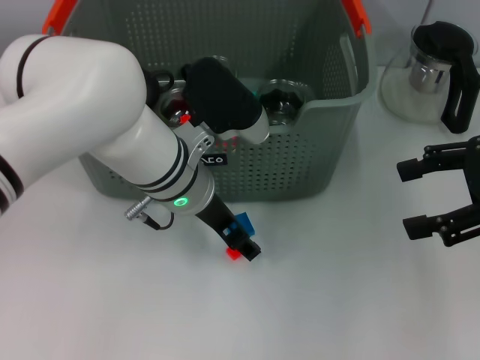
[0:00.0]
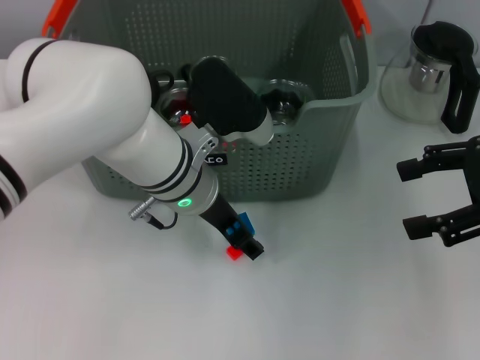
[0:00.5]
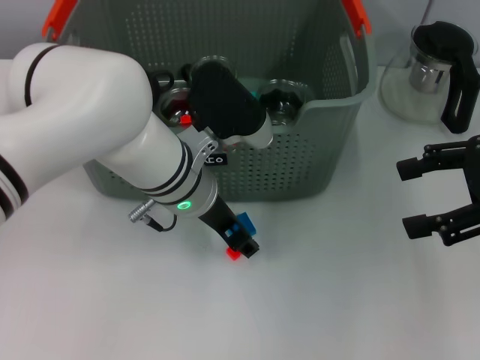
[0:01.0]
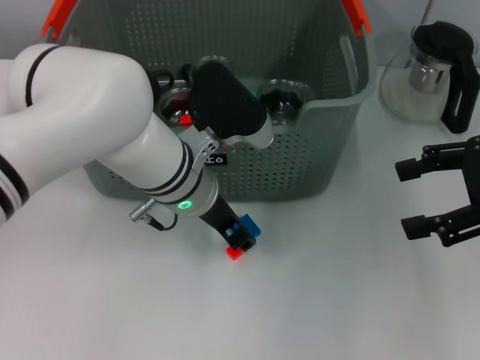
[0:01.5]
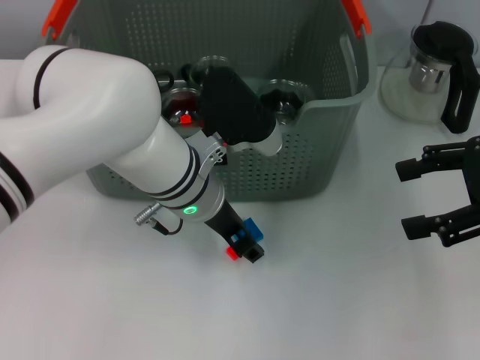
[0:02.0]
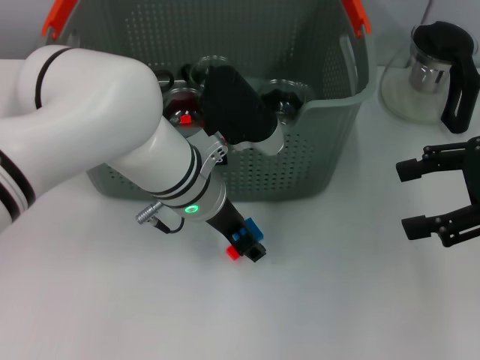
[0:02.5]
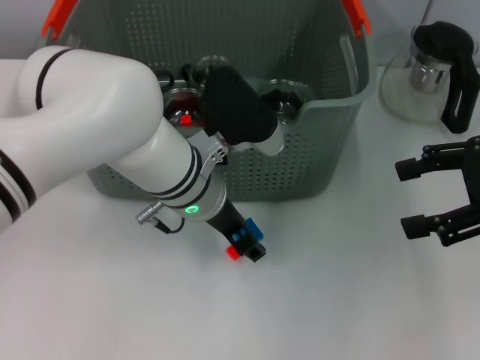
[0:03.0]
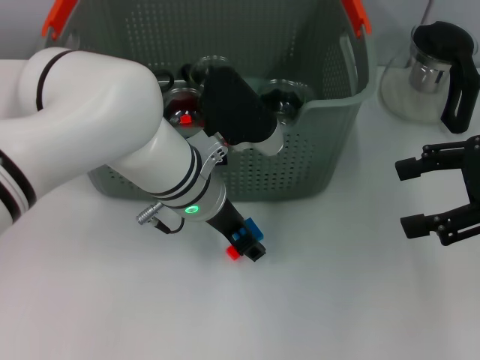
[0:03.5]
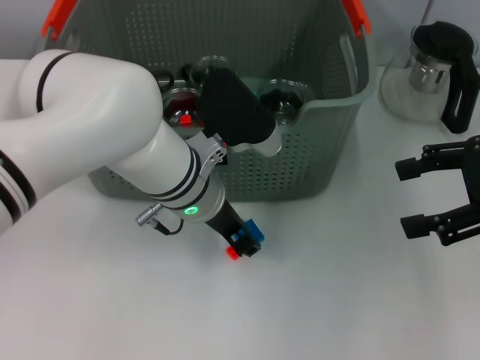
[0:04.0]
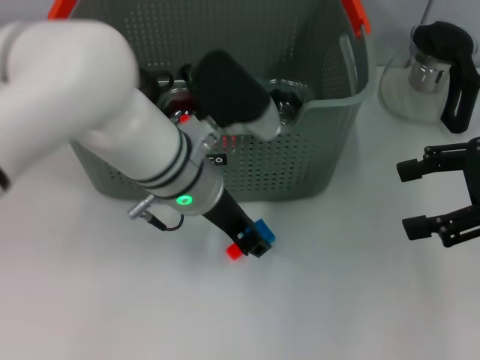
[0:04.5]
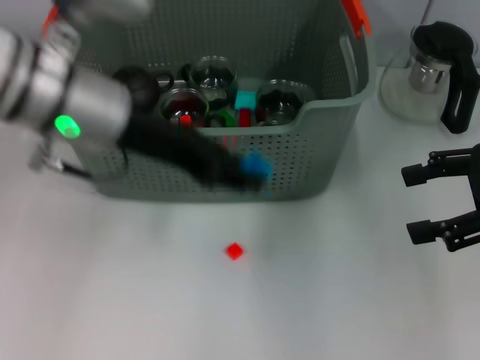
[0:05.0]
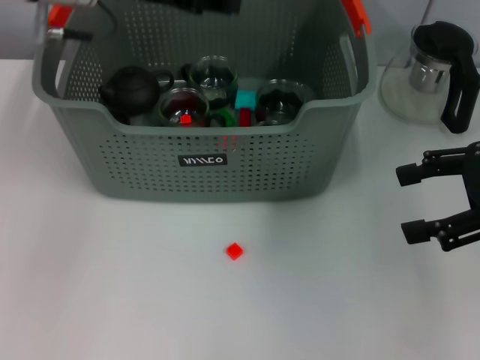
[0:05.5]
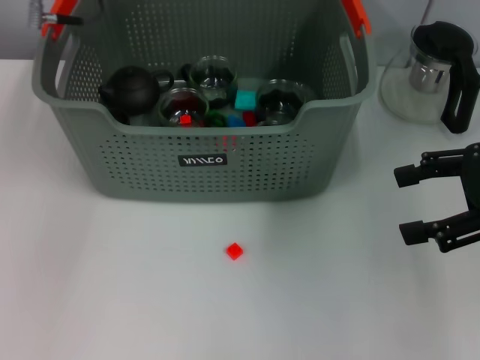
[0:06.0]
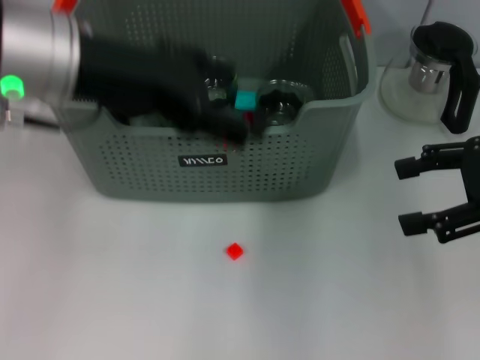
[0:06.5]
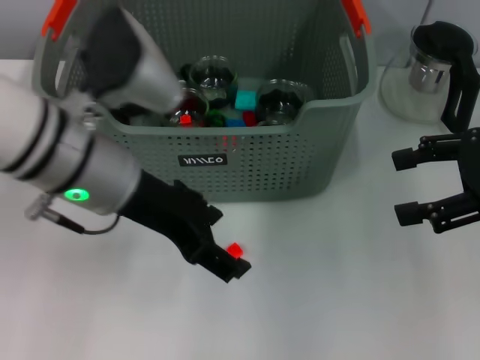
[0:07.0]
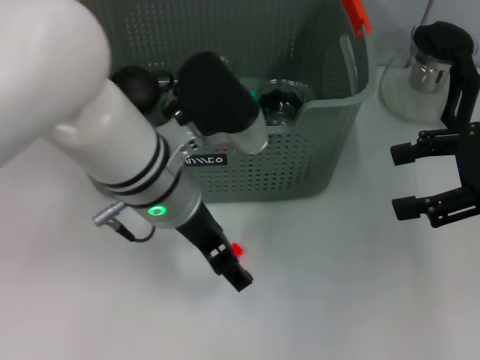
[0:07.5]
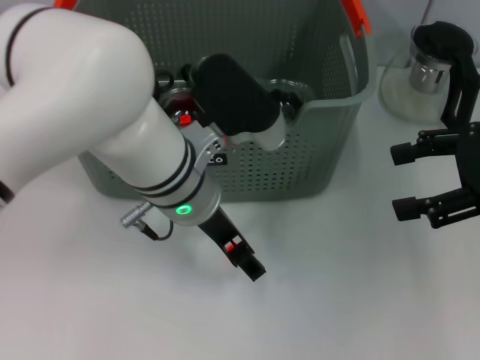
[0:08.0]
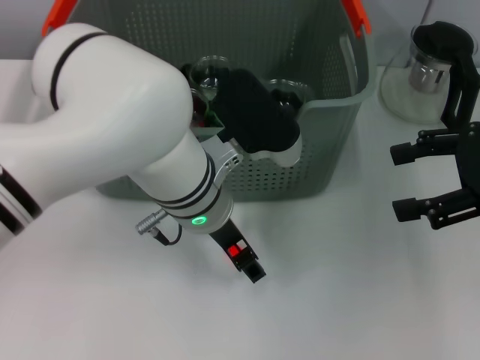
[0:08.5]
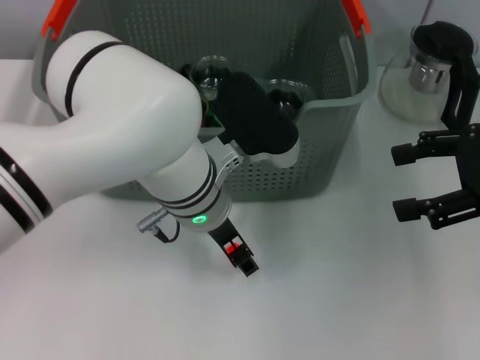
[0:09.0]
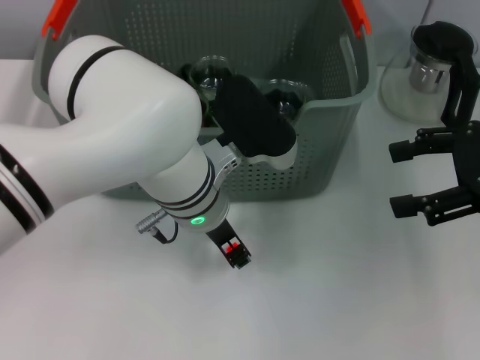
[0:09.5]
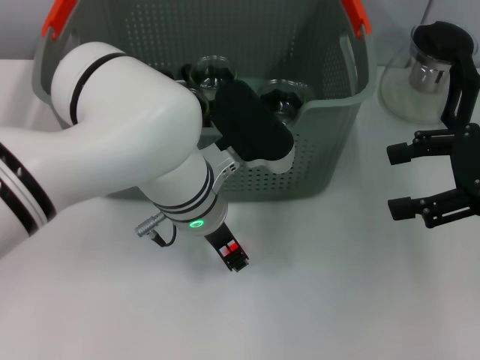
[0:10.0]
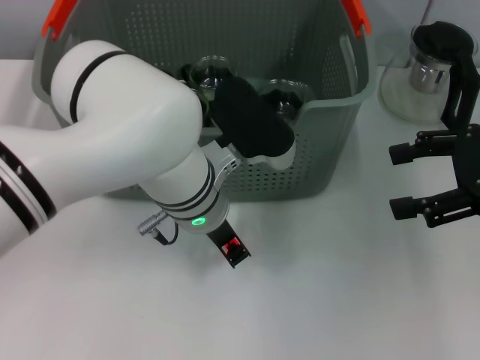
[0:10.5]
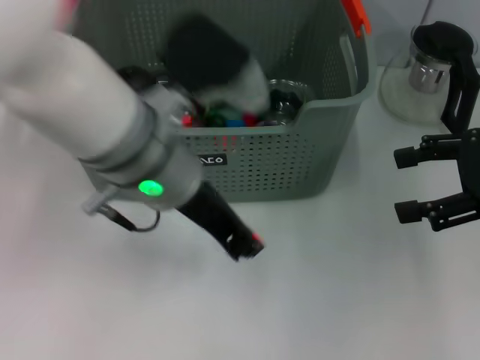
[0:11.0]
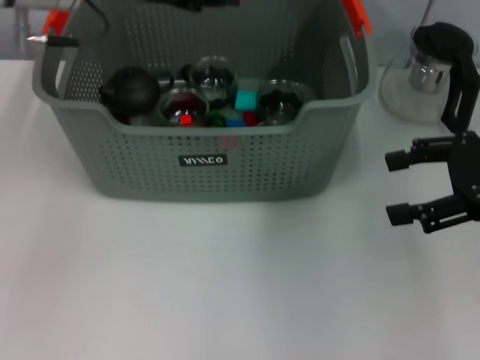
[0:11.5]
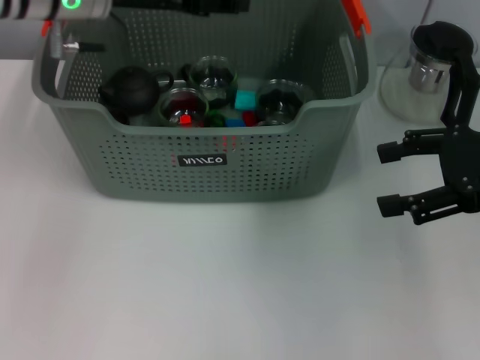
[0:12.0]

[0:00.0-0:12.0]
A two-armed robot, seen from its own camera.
Task of the whole recording: pick up the teacup on the table and place it into the storage bin, pick up the block on the table and place it into the storage bin.
Step, 0:00.0 to 0:04.0: Grasp the dark blue block with left gripper.
Step, 0:04.5 to 0:05.5: Place the dark blue block in the storage box with left gripper.
Step, 0:06.0 to 0:10.5: Grasp the orange block with left gripper.
Step, 0:11.0 to 0:11.5: Place the orange block in the storage box with left gripper.
0:00.0 to 0:02.0: The left gripper closes its fingers.
0:02.0 to 0:04.0: Neither gripper changes place.
0:04.0 to 0:06.0: The left gripper heads upward, to the left and forward, covering about 20 cm.
0:06.0 to 0:08.0: The left gripper shifts some 20 cm to the right, downward and backward, and opens up.
0:08.0 to 0:10.0: The left gripper closes its fingers.
0:10.0 to 0:12.0: The left gripper goes approximately 20 cm to the left, upward and forward.

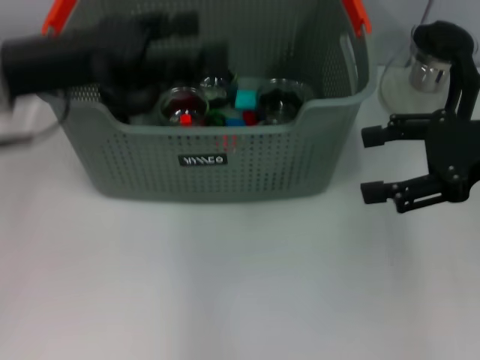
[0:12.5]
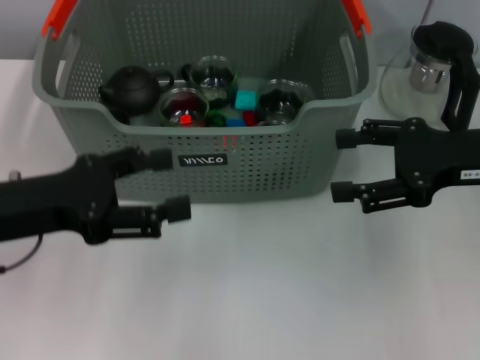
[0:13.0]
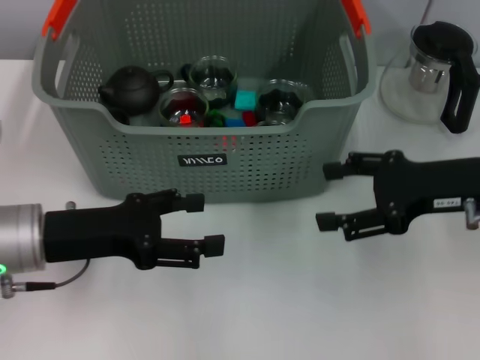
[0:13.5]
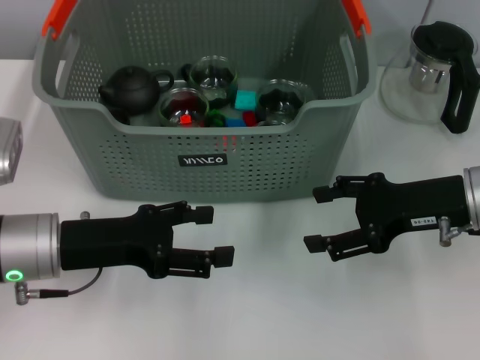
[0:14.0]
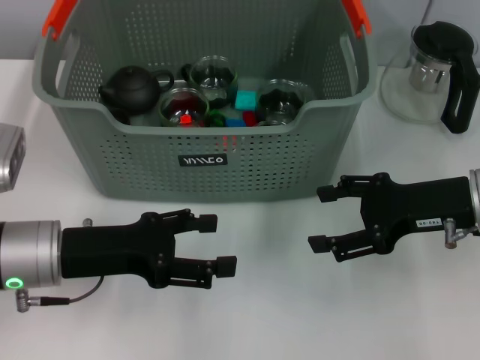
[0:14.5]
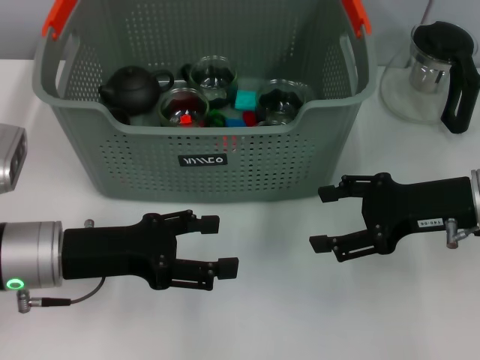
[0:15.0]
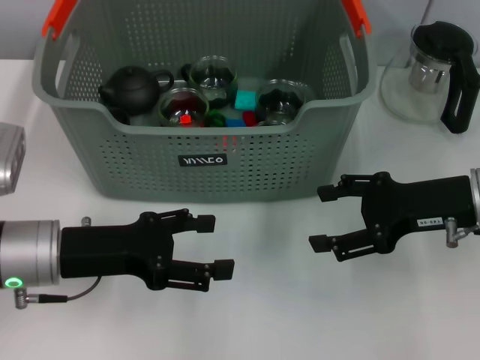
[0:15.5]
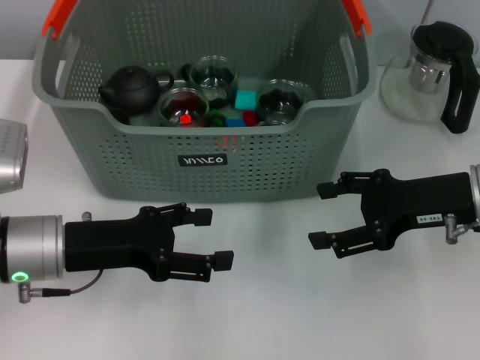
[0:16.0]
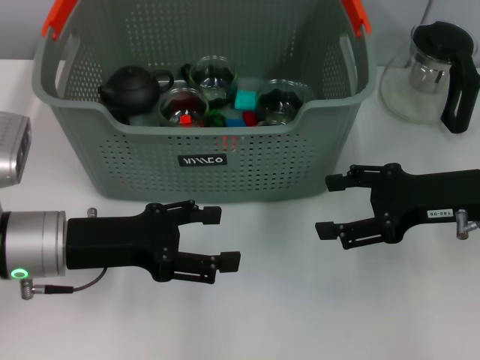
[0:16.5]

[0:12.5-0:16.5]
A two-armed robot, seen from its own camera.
Task of the whole recording: pick up the teacup on the table and place it into the storage bin, pick up the block on the table and place it into the storage bin.
0:12.5 to 0:14.5: The left gripper heads downward, covering some 15 cm. Meanwhile the right gripper heads downward, covering some 10 cm.
0:14.5 to 0:16.5: Both grippers stay about where they are.

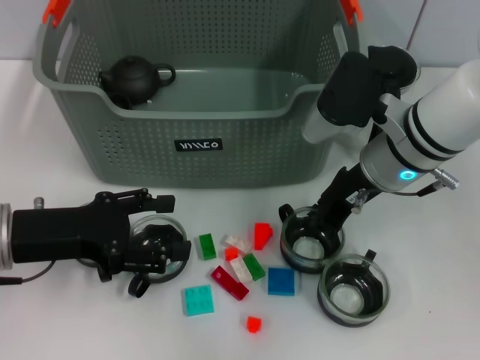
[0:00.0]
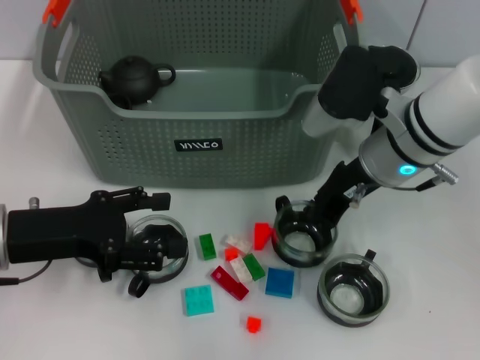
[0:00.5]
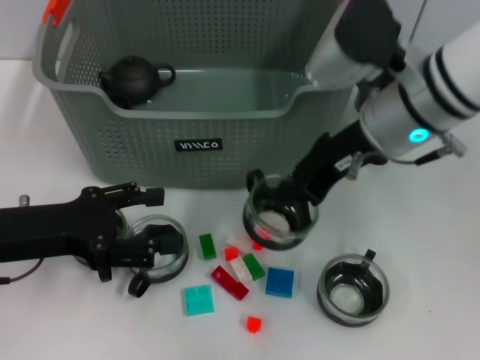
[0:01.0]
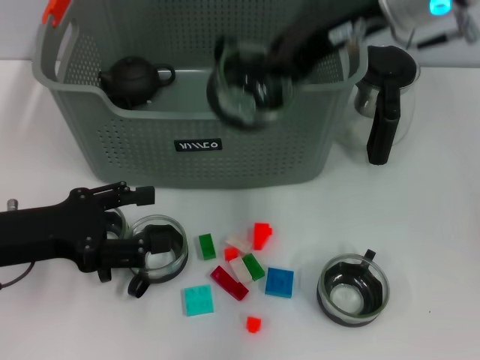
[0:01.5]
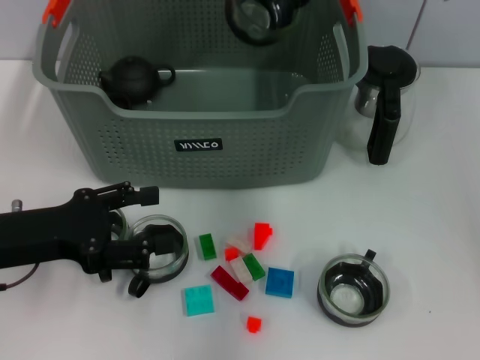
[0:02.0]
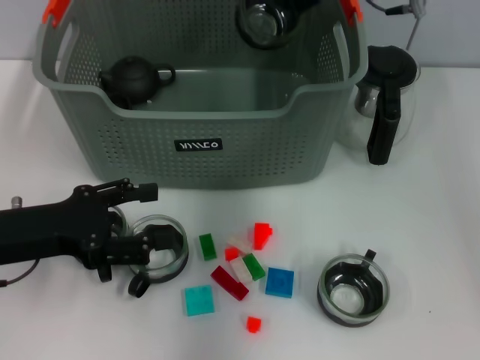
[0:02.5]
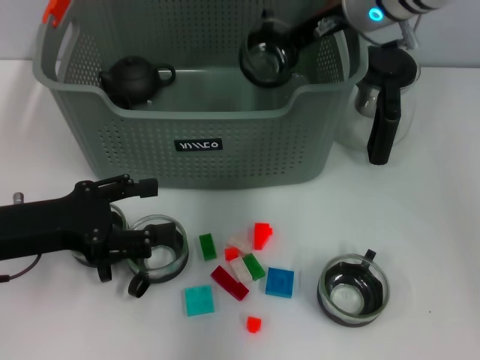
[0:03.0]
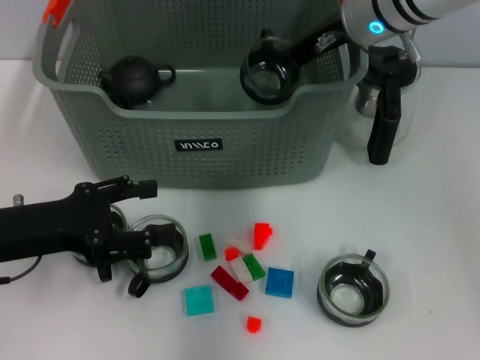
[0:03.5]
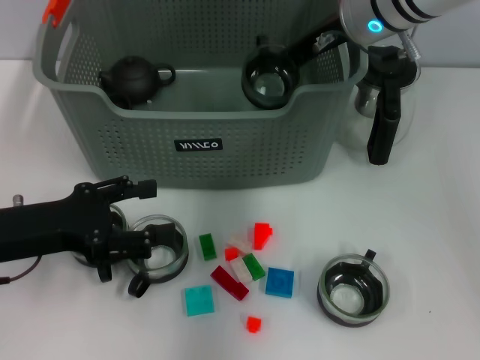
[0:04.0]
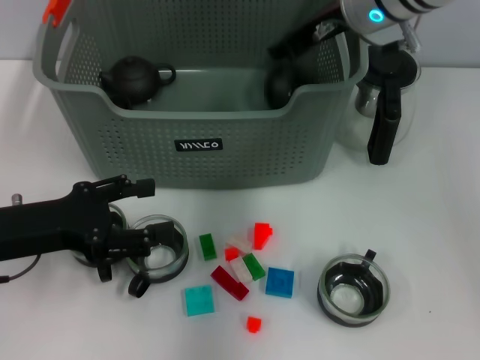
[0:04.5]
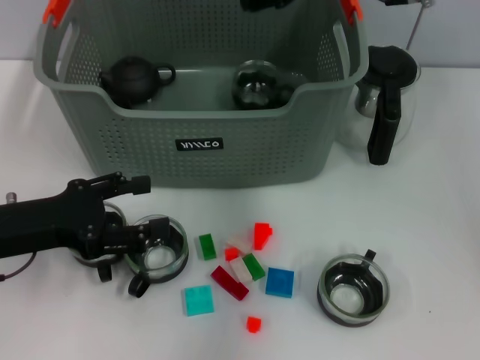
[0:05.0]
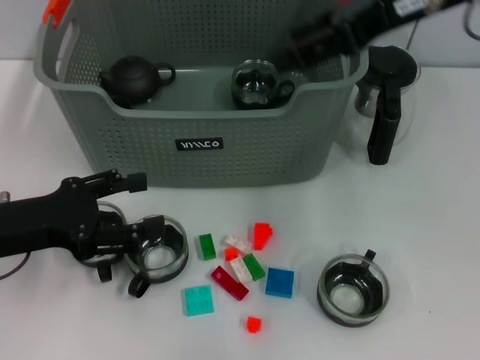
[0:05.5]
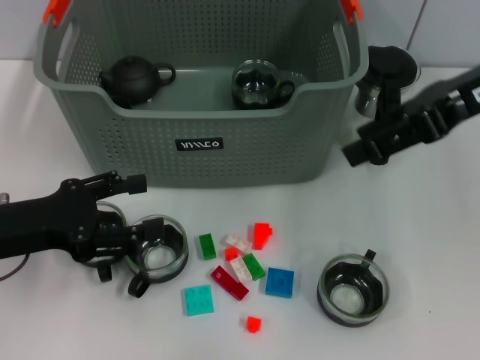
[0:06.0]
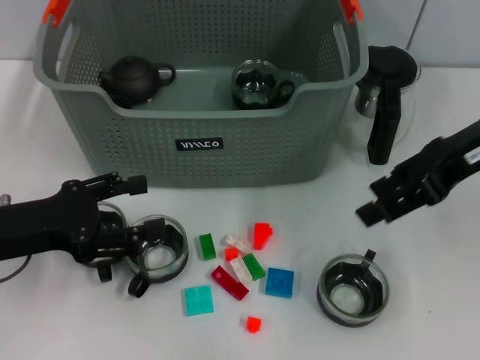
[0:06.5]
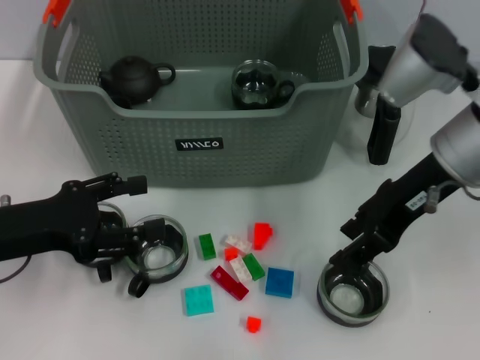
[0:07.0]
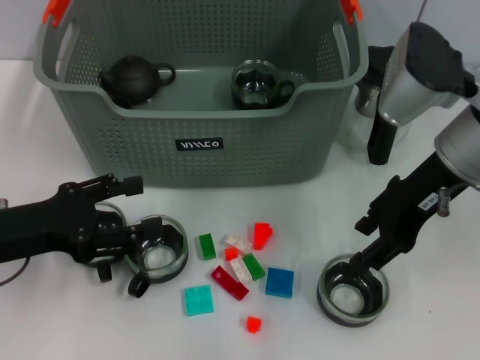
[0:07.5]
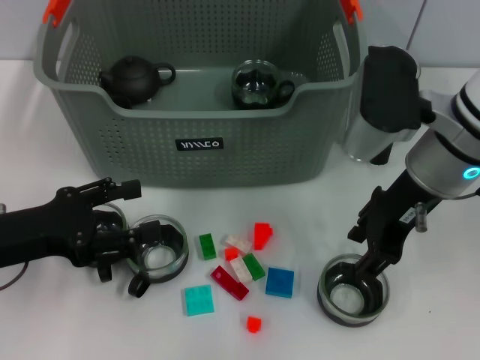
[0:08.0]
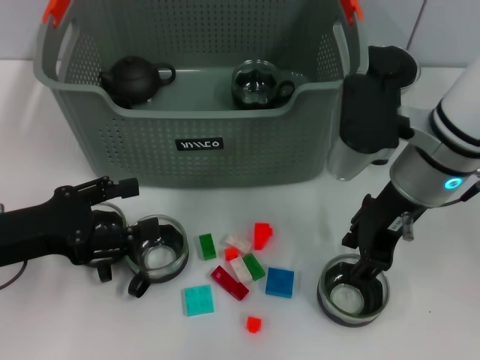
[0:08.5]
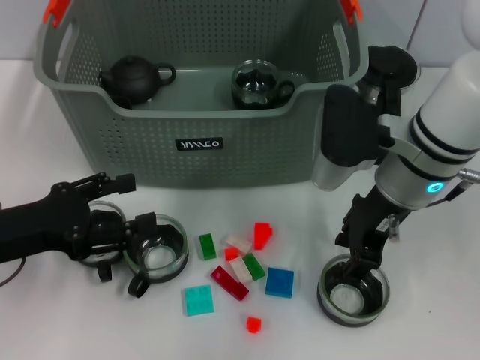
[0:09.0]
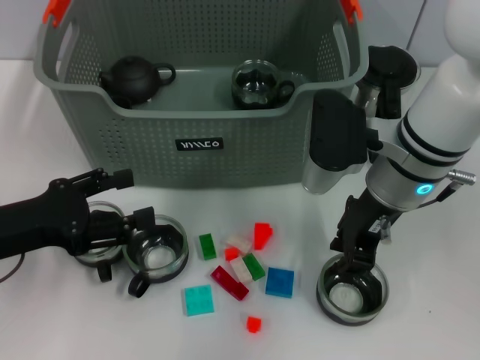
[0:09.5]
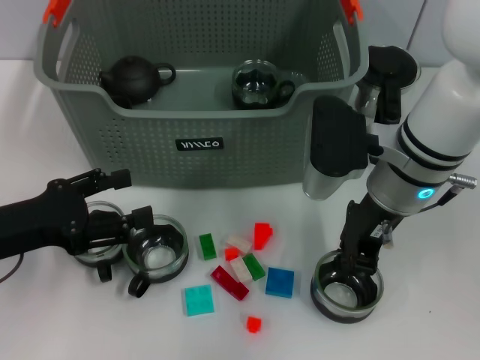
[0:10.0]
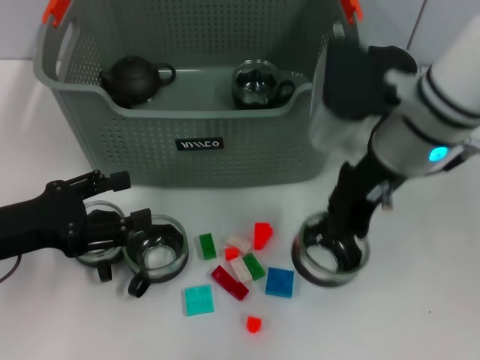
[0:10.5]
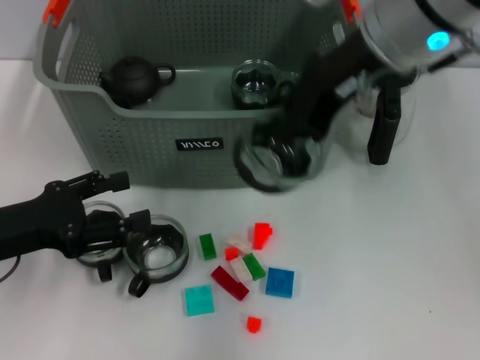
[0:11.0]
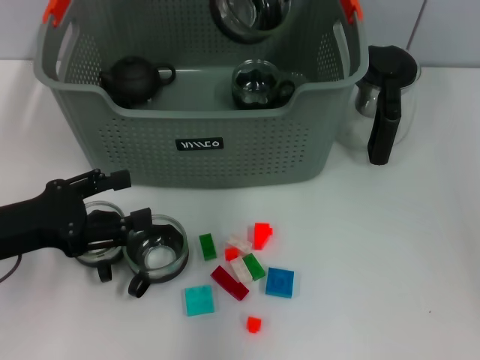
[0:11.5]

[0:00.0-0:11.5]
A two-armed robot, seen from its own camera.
Task of the whole recording: pick up the teacup on the table and place it into the storage bin, pick up the block on the table and place it into the storage bin.
Step, 0:00.5 to 0:04.5: Place the cup in the storage box with right gripper.
Step, 0:05.0 to 0:09.5: Grasp the cup with right gripper.
0:00.0 to 0:02.0: The right gripper moves upward and forward, about 15 cm, and closes its fingers.
0:02.0 to 0:04.0: The right gripper goes roughly 5 cm downward.
0:04.0 to 0:06.0: The right gripper is displaced to the right, backward and upward by about 15 cm, and opens.
0:06.0 to 0:07.5: The right gripper travels downward by roughly 10 cm.
0:07.5 to 0:09.5: The right gripper is displaced to the left by some 5 cm.
0:09.5 to 0:11.5: The right gripper heads upward, covering some 20 cm, and closes up.
